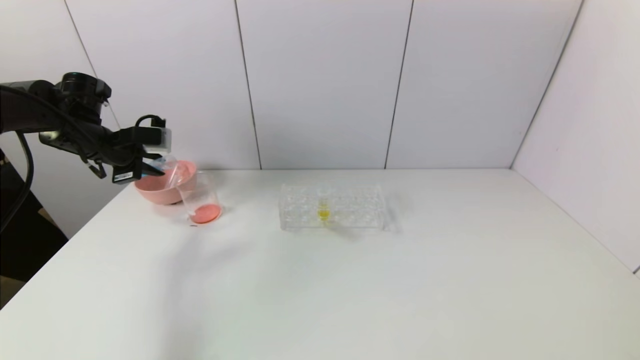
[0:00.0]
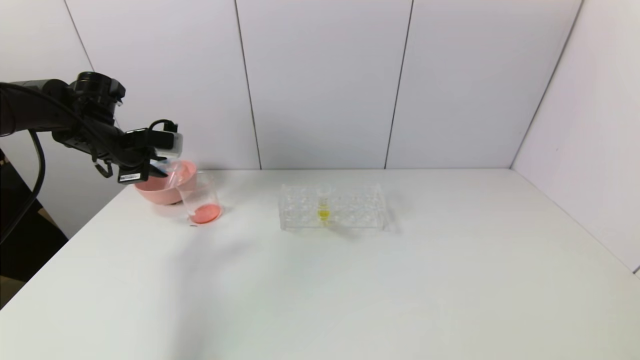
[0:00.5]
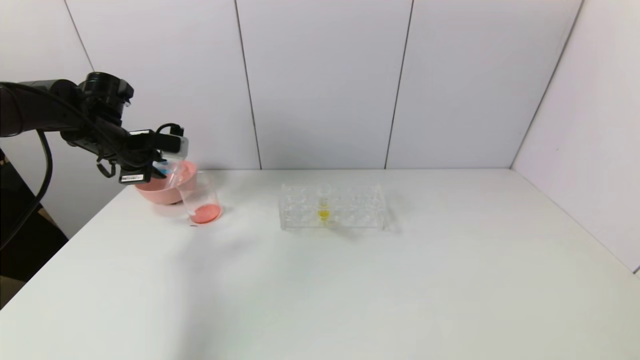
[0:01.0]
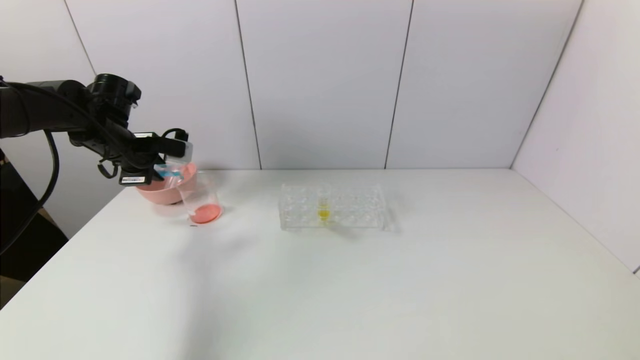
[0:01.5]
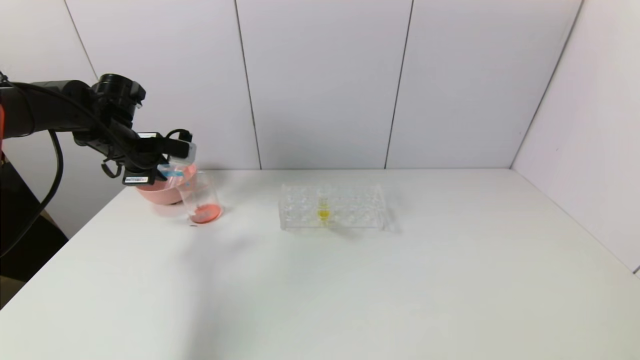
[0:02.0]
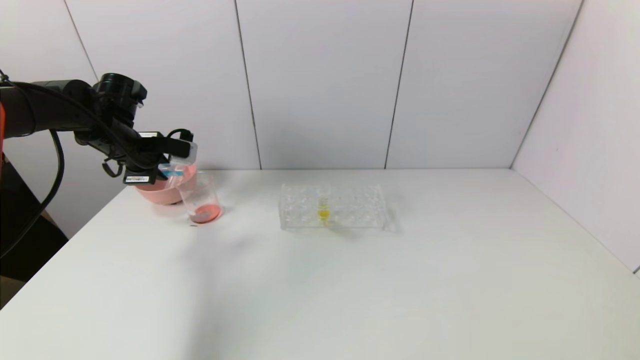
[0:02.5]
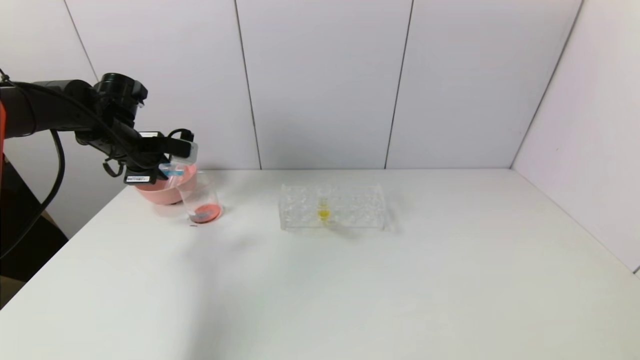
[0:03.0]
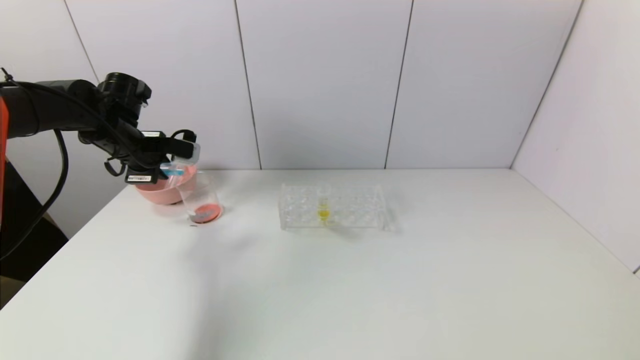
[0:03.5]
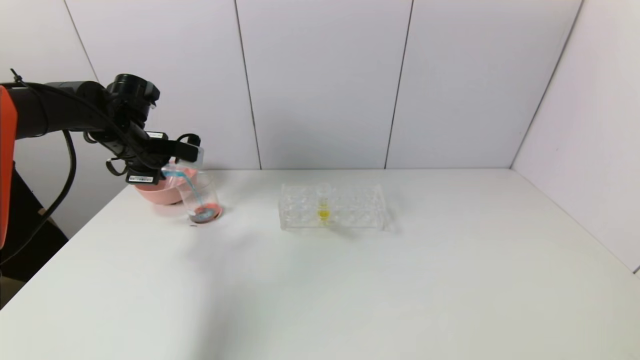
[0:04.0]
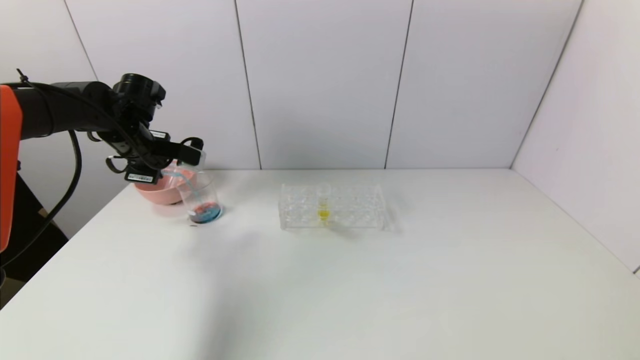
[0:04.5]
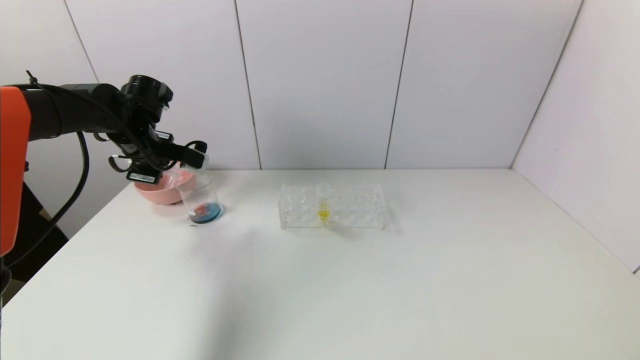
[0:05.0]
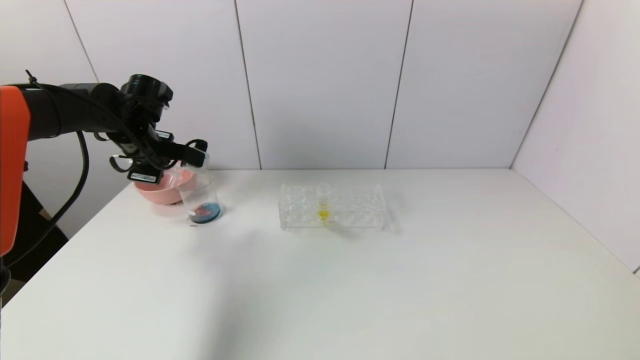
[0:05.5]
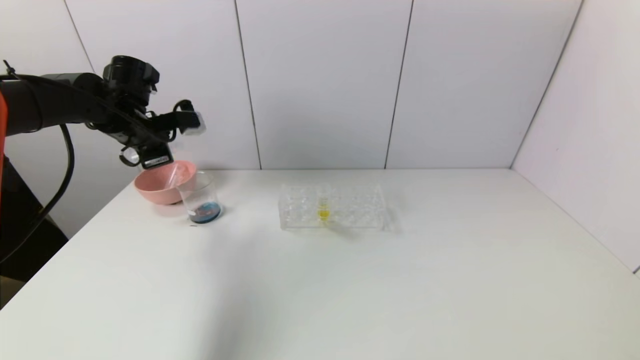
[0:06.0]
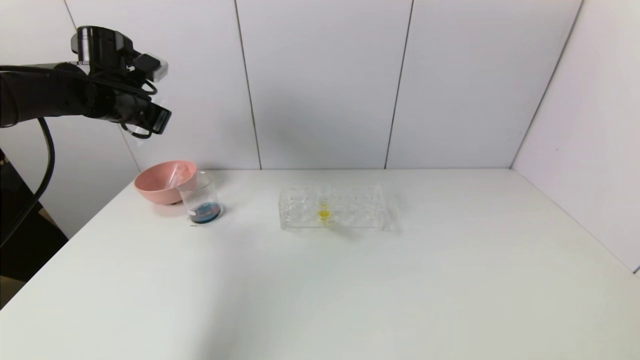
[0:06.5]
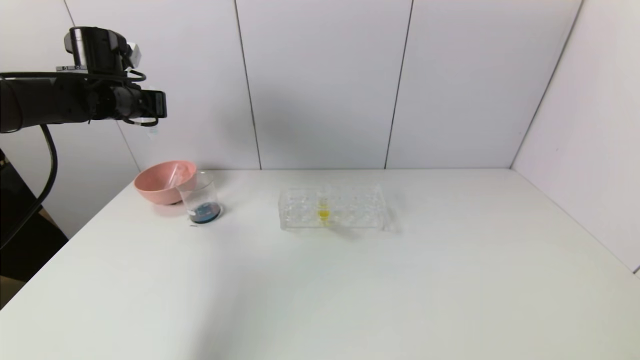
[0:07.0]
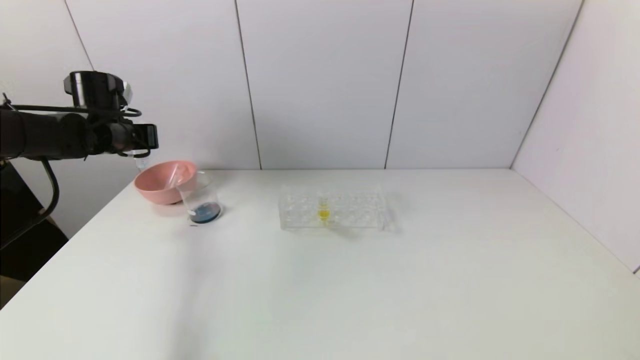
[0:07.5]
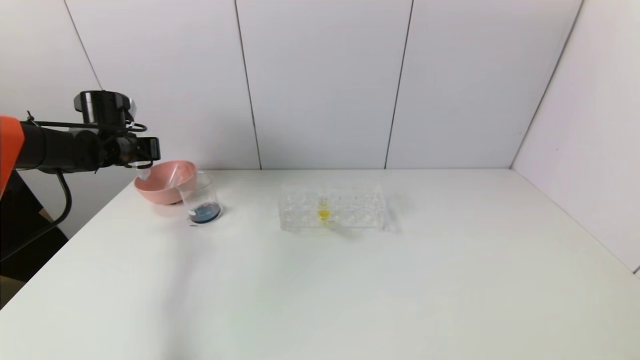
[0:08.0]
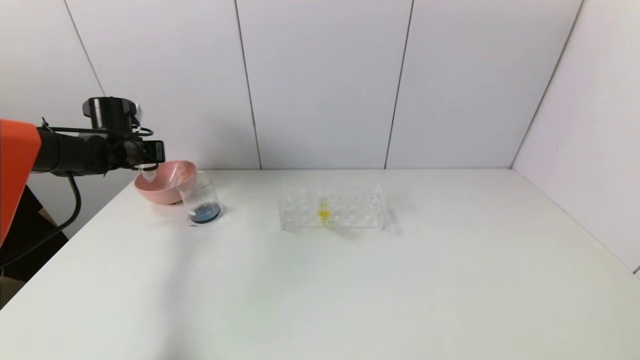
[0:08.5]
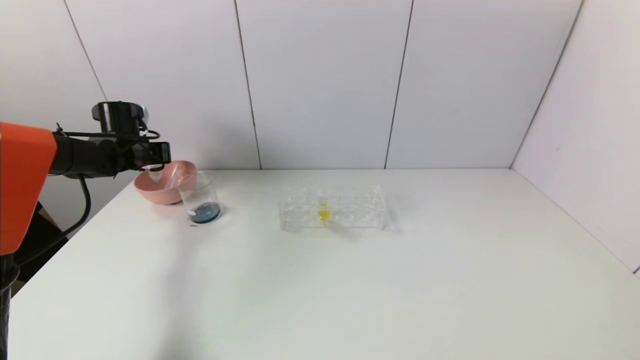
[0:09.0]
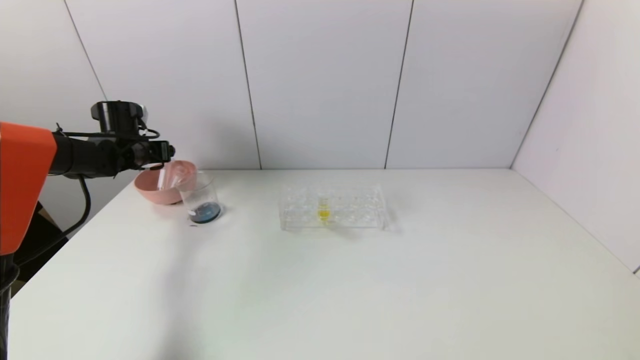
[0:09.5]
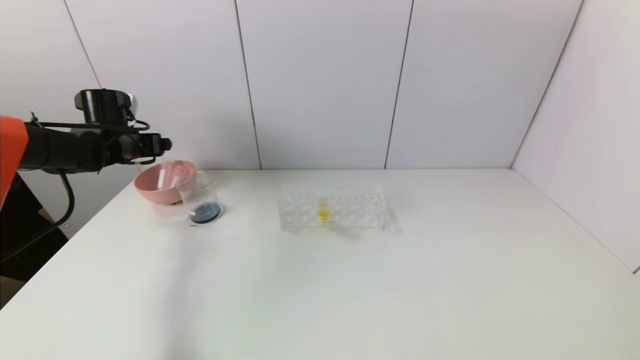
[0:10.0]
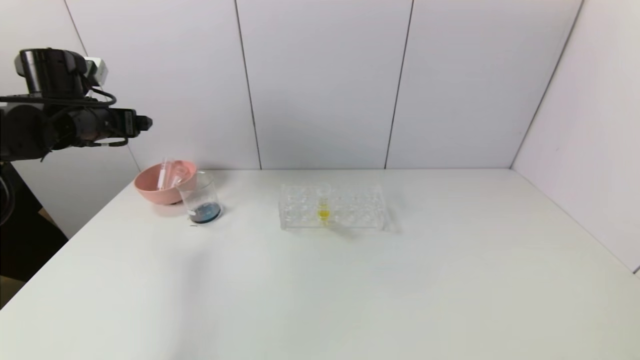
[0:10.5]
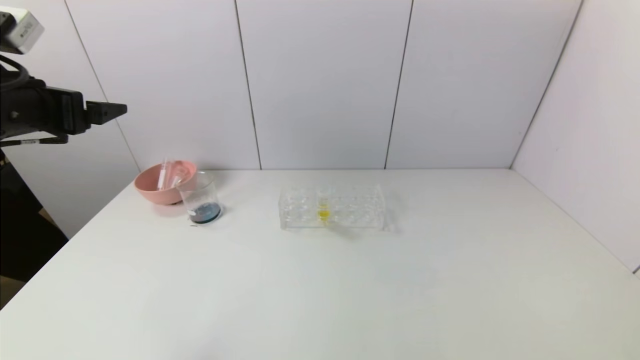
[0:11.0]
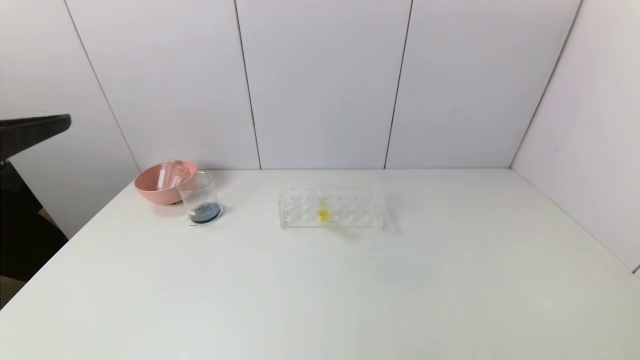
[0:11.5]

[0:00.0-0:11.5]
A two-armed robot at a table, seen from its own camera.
Task of the whole recording: pick up the test tube with red pigment and the test tube with blue pigment by grippers and pour them into the container.
Step, 0:00.0 to 0:06.0: Pour the blue reagent into the graduated cylinder with the left gripper.
Step, 0:06.5 to 0:09.5: Place the test tube into the bowl with the left gripper.
0:00.0 to 0:02.0: The grippers stay close to where they were, moving slightly.
0:02.0 to 0:04.0: There are only small adjustments of the grippers.
0:06.0 to 0:07.5: The left gripper travels to the left by approximately 5 cm.
0:07.5 to 0:09.5: The left gripper moves downward, some 5 cm, and opens its fingers.
0:09.5 to 0:11.5: The left gripper is displaced backward and upward by approximately 40 cm.

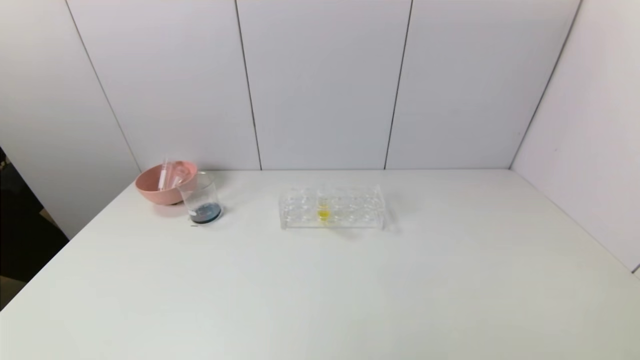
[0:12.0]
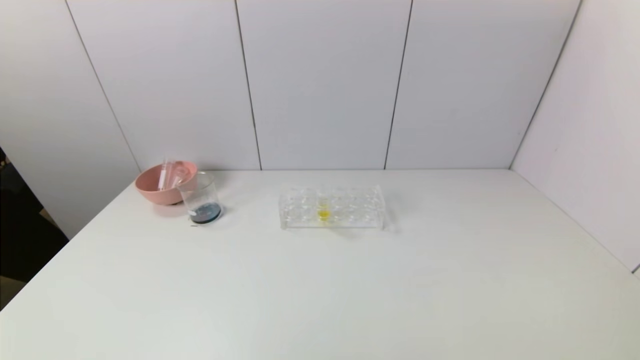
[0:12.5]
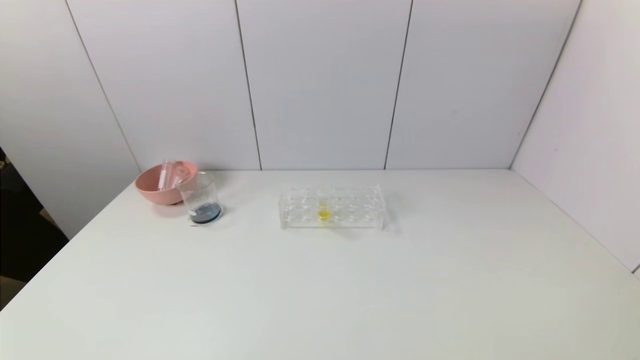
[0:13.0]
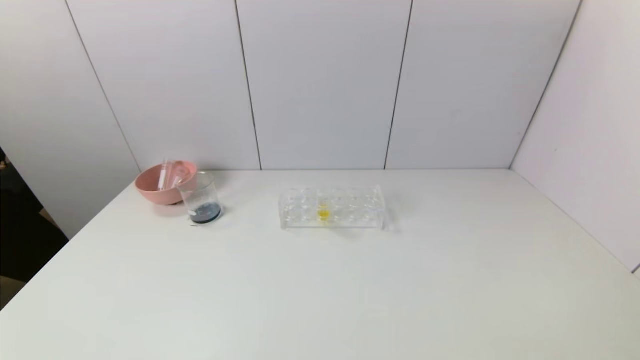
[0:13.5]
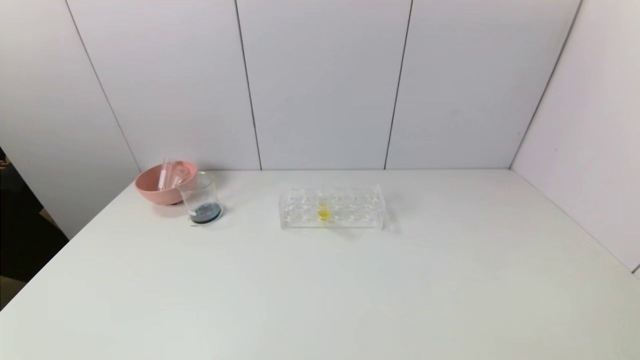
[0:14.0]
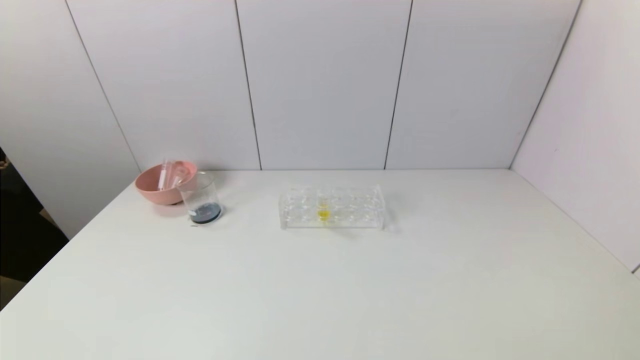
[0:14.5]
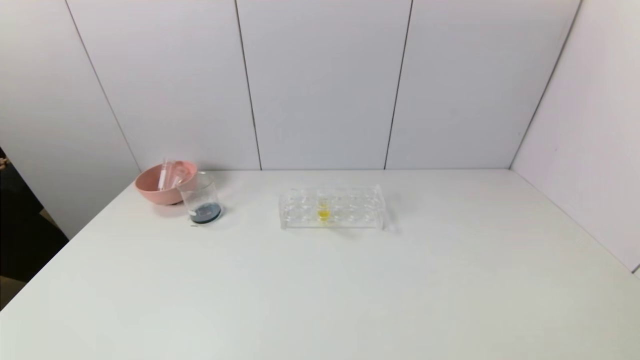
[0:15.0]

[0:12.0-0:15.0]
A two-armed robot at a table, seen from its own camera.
Task of the whole recording: pick up the test tube with red pigment and the test tube with blue pigment by grippers and pour them into the container.
0:13.5 to 0:15.0: Both grippers stay about where they are.

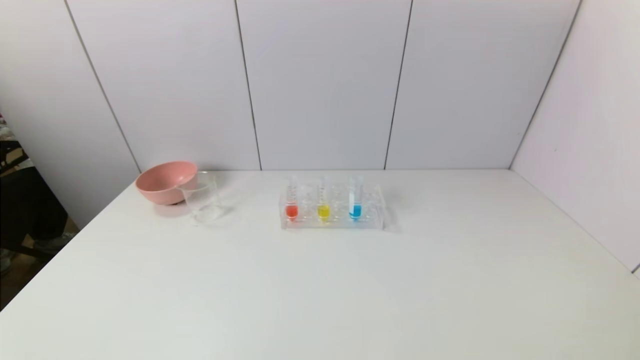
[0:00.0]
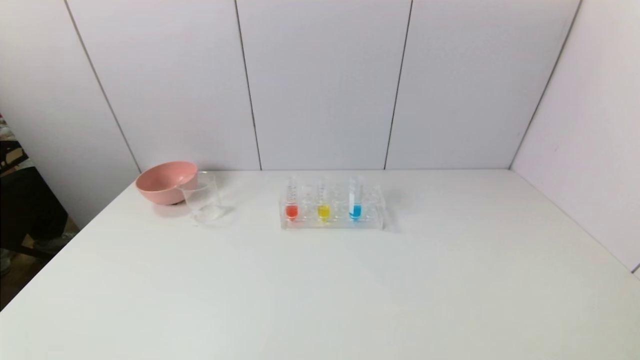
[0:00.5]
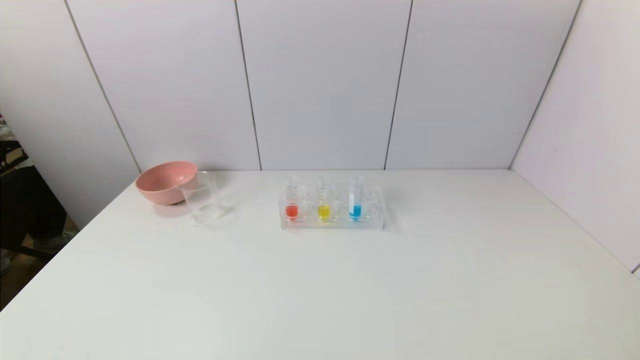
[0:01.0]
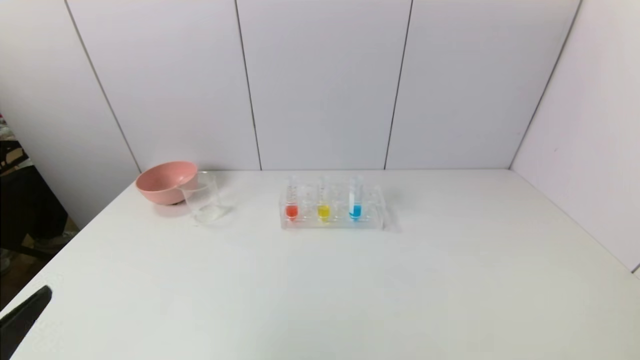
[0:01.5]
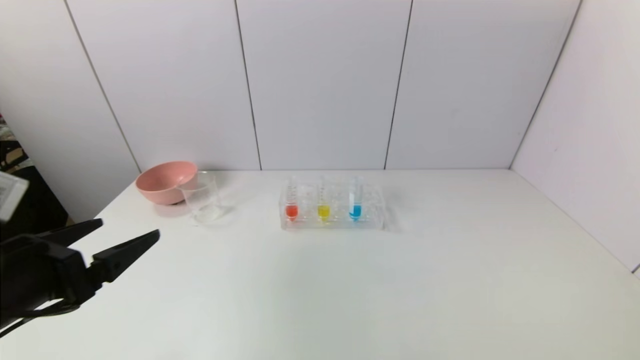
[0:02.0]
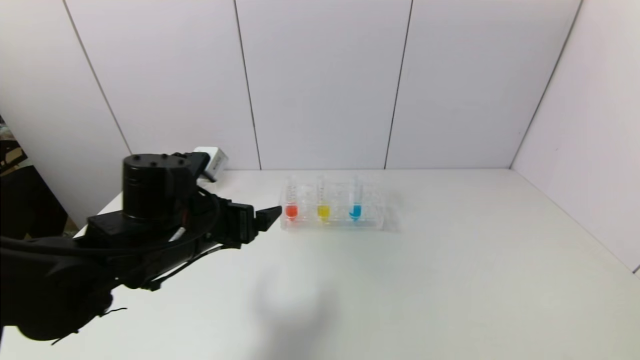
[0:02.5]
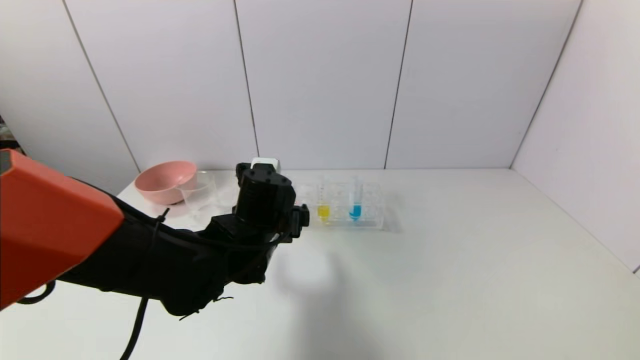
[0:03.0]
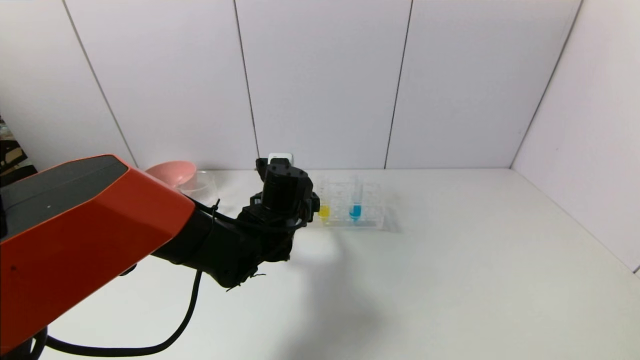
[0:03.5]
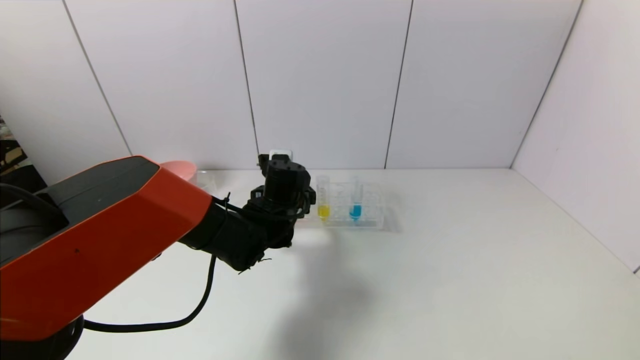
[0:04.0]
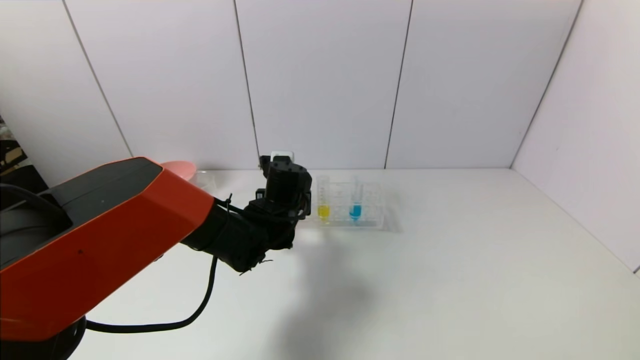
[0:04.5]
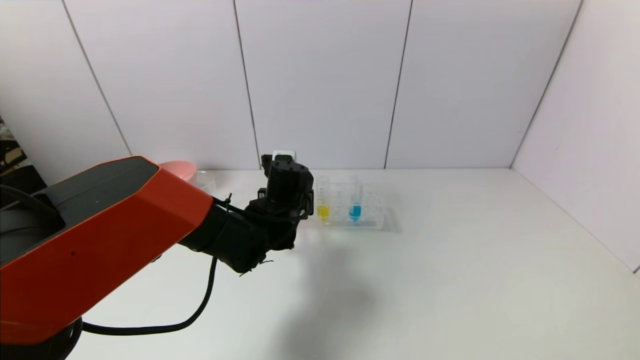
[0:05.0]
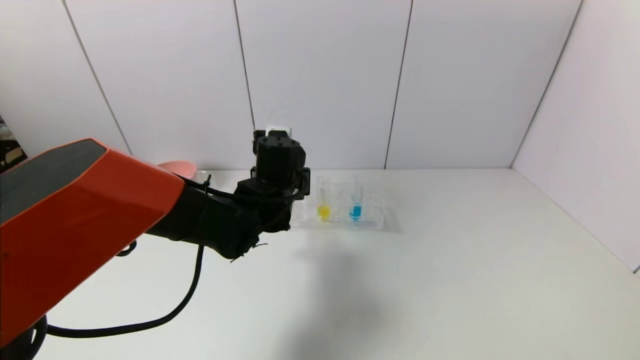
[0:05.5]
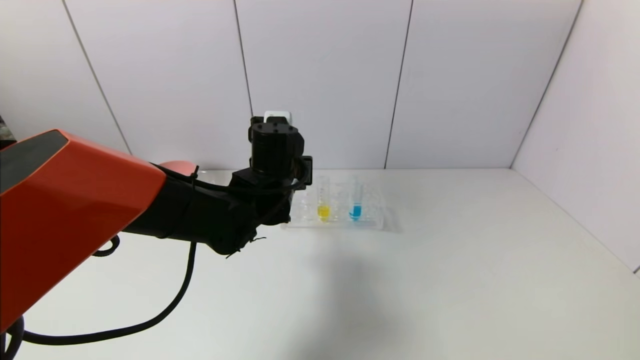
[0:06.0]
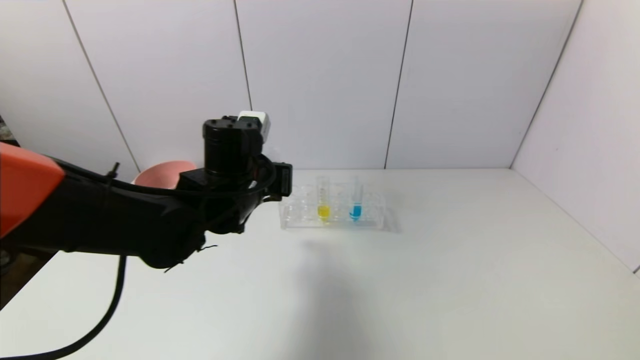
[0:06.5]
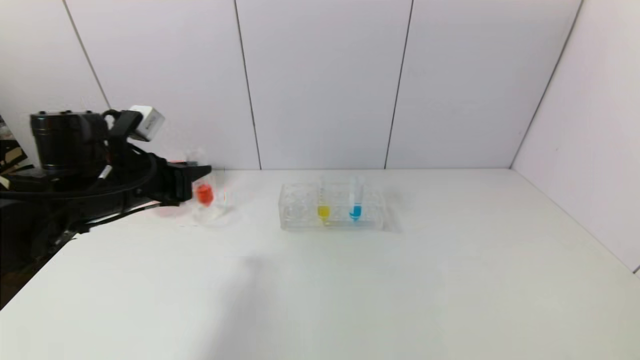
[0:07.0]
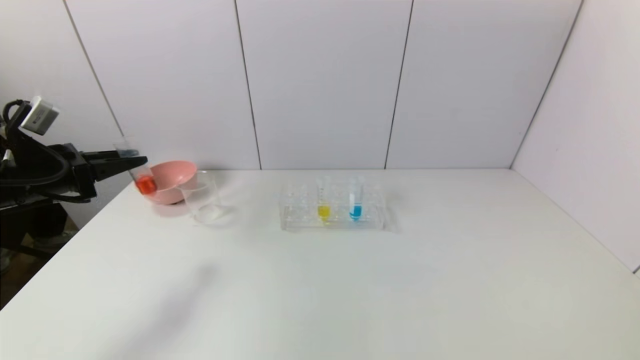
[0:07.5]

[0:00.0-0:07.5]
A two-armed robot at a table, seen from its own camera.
Task of the whole recording: pick up the test tube with red pigment and the test tube with blue pigment by grippers and pour them into the container.
Step, 0:00.0 to 0:04.5: Grasp the red reagent with the left gripper.
0:00.0 to 0:02.0: The left gripper heads forward and upward, covering roughly 20 cm.
0:02.0 to 0:04.0: The left gripper goes approximately 30 cm to the right and forward.
0:04.0 to 0:05.5: The left gripper is displaced upward by roughly 5 cm, and closes up.
0:05.5 to 0:07.5: The left gripper shifts approximately 35 cm to the left.
